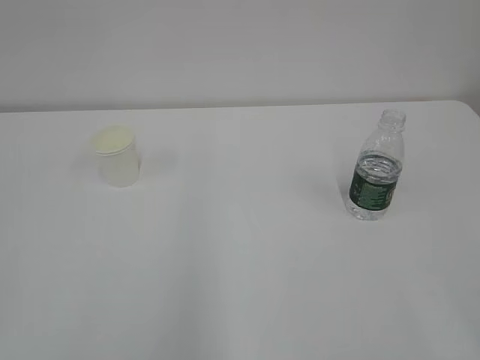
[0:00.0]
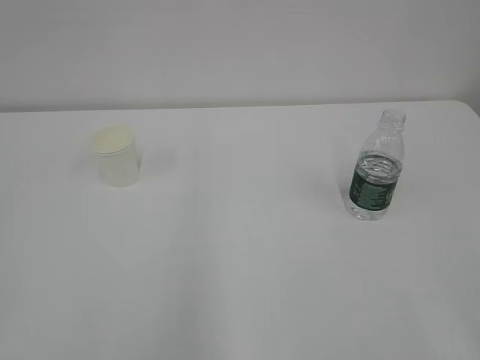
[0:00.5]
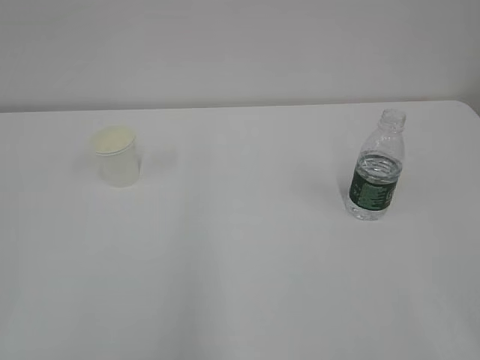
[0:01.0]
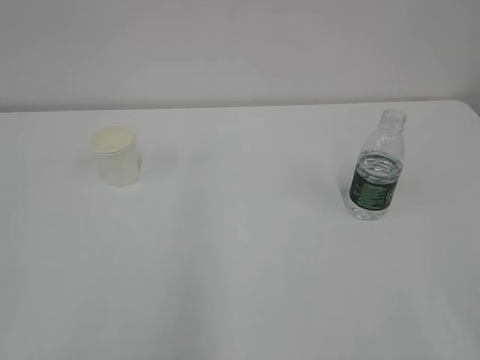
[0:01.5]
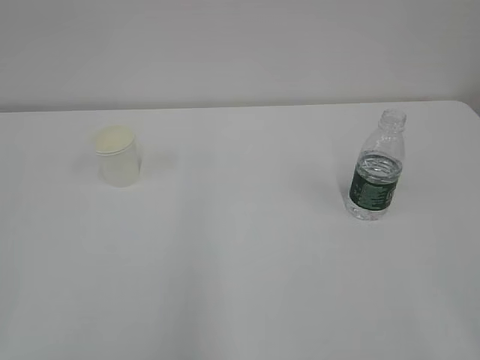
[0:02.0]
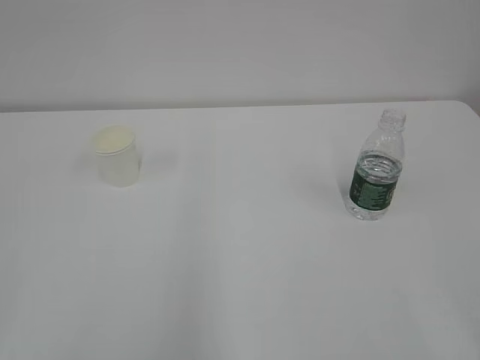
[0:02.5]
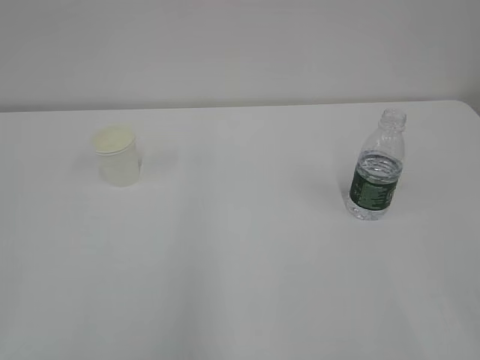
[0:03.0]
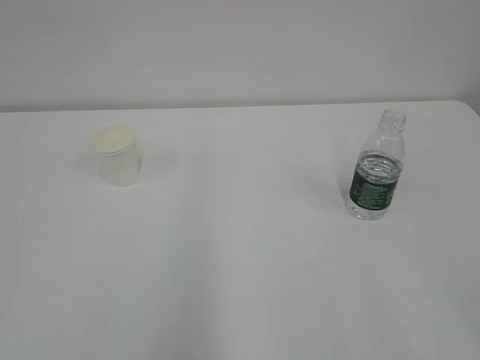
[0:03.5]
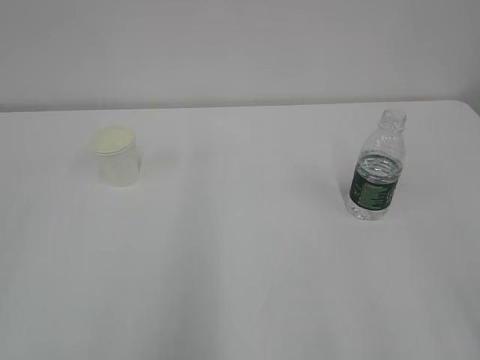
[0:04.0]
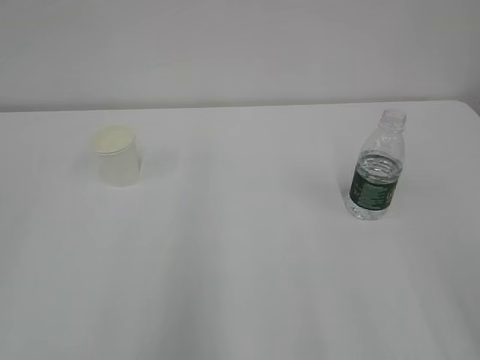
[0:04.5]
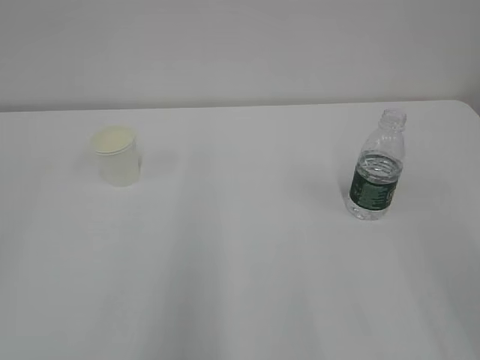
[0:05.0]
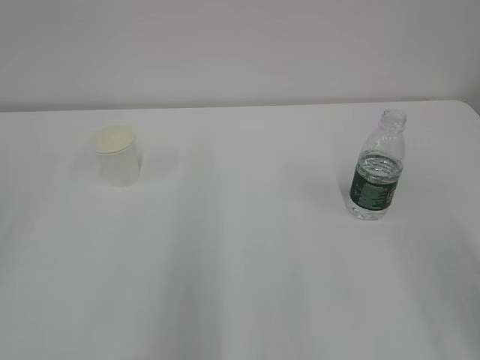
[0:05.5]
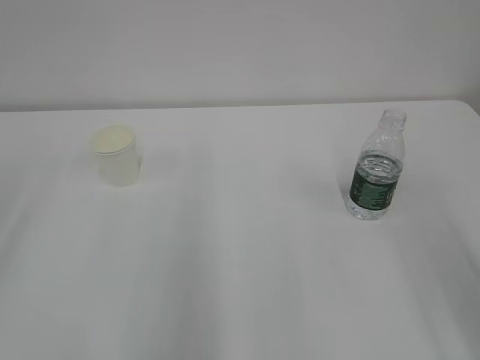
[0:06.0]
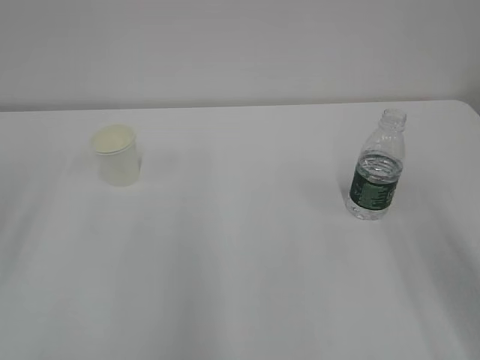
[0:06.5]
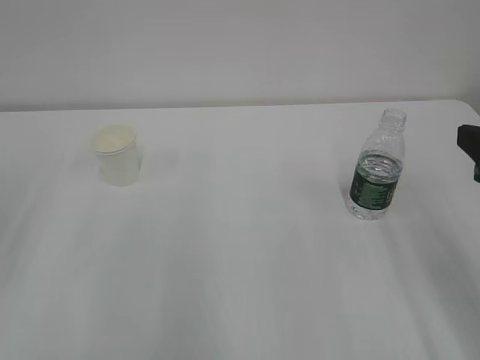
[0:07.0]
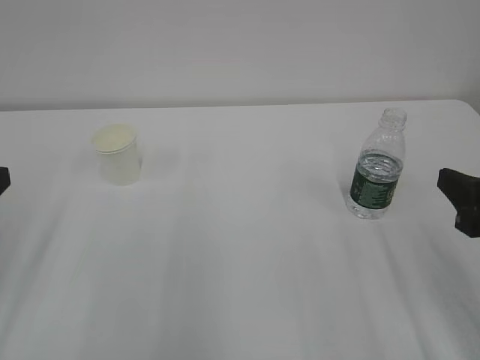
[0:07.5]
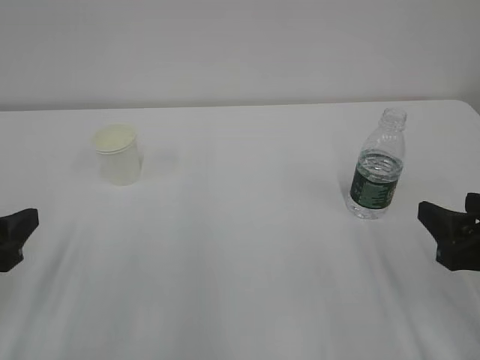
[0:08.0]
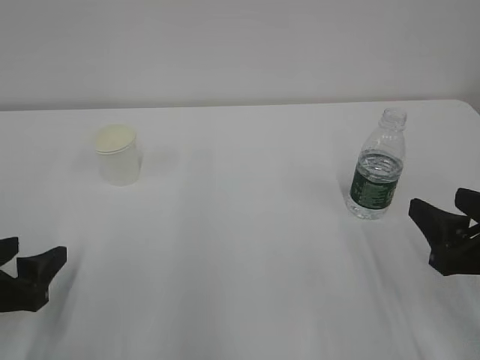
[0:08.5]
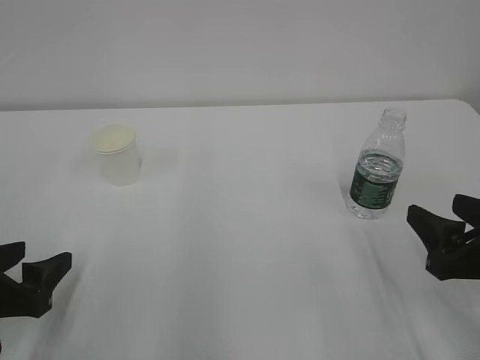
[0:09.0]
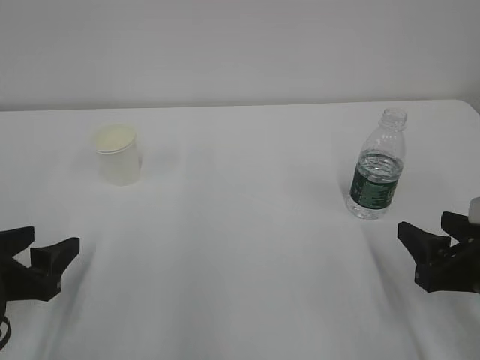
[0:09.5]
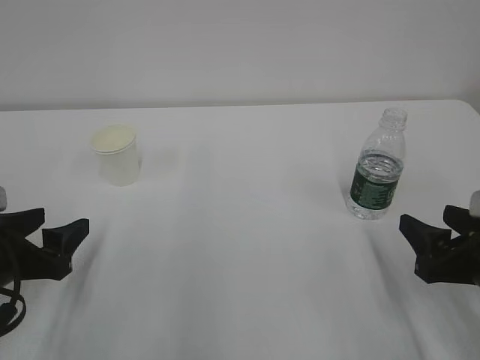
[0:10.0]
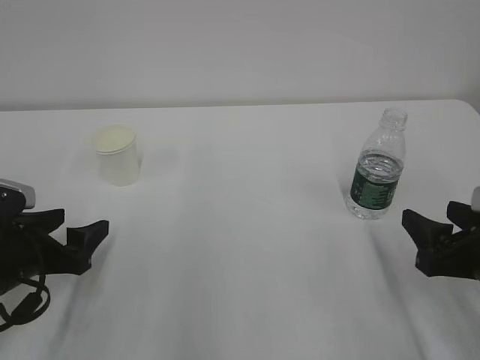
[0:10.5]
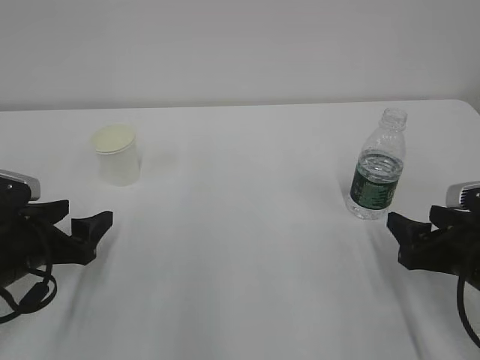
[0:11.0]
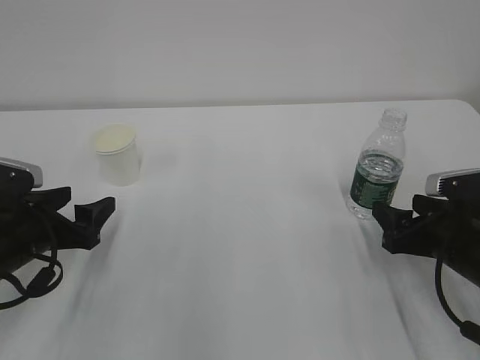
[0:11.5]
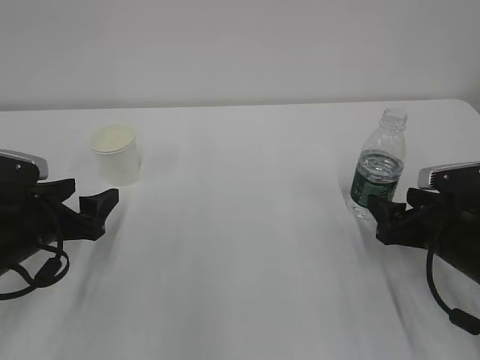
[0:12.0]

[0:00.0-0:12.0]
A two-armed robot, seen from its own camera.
0:06.0 to 0:08.0: The two grippers go roughly 15 cm downward.
0:08.0 to 0:10.0: The left gripper shifts by about 5 cm.
0:10.0 to 0:12.0: Both grippers move forward, roughly 5 cm.

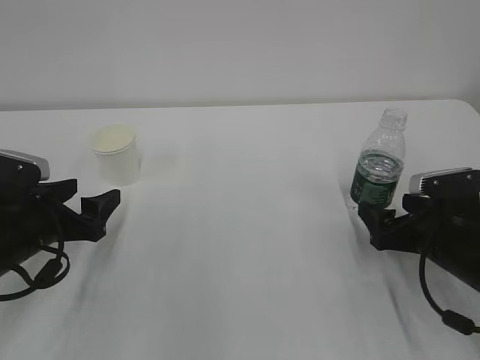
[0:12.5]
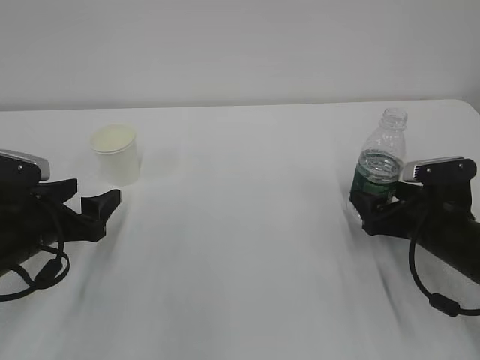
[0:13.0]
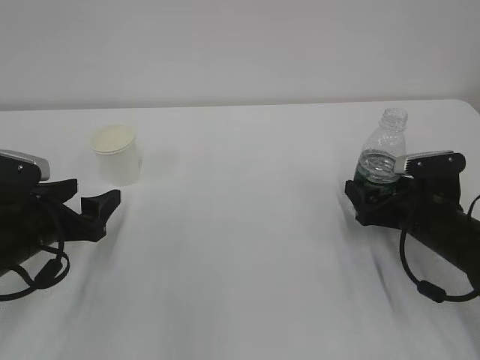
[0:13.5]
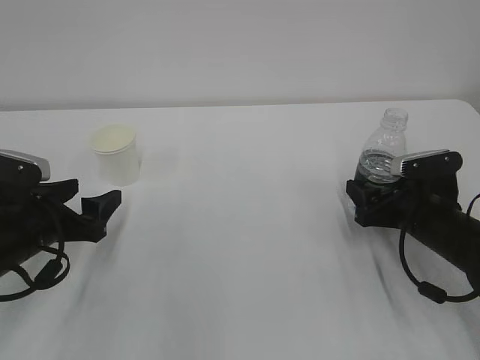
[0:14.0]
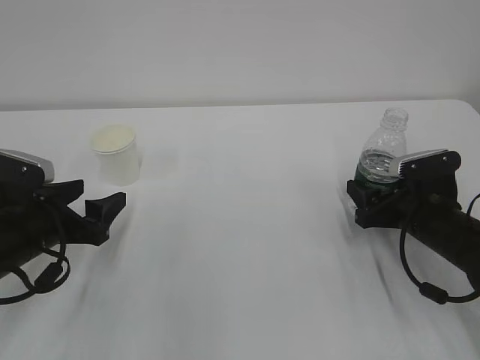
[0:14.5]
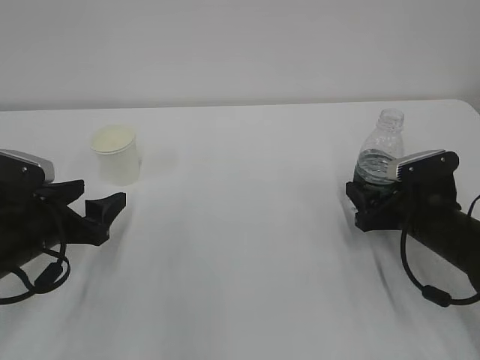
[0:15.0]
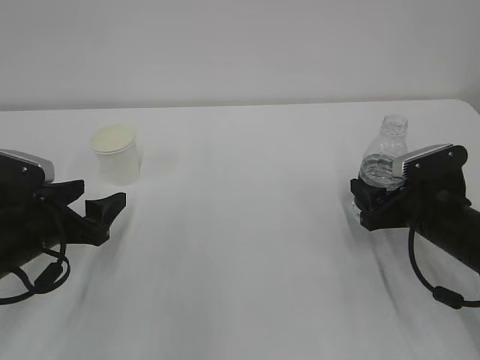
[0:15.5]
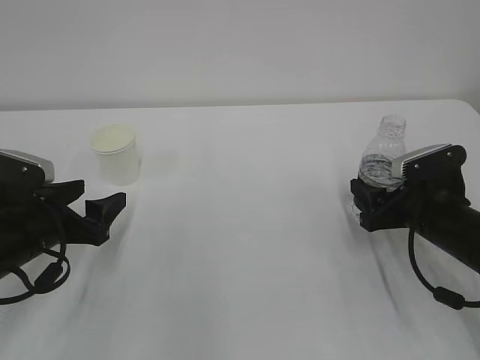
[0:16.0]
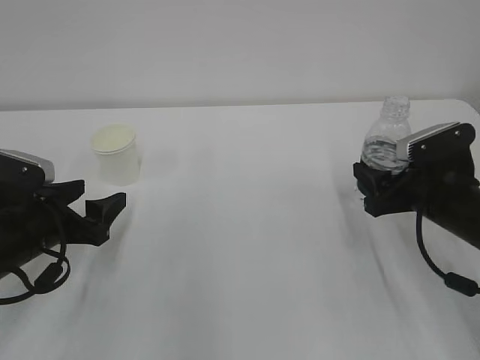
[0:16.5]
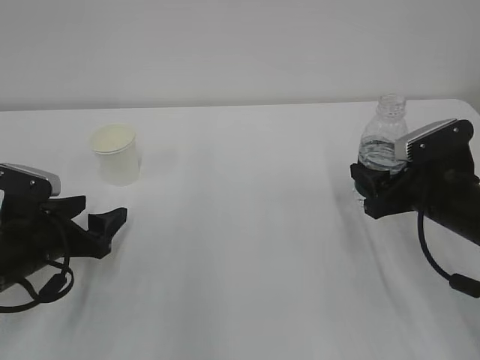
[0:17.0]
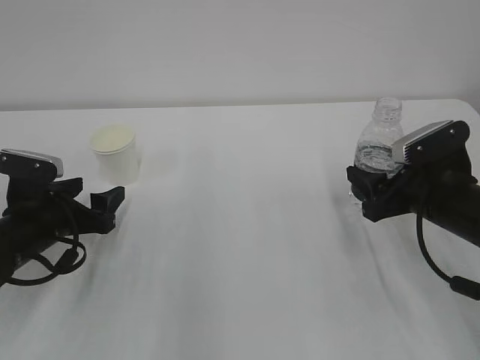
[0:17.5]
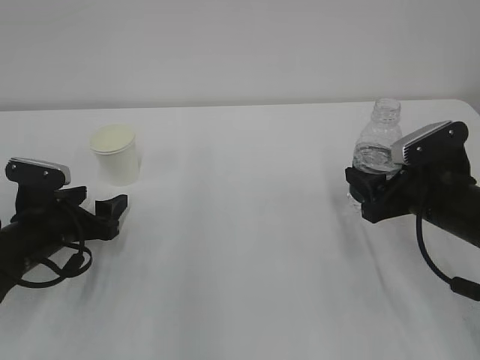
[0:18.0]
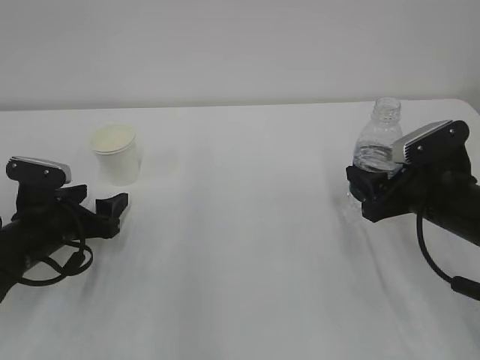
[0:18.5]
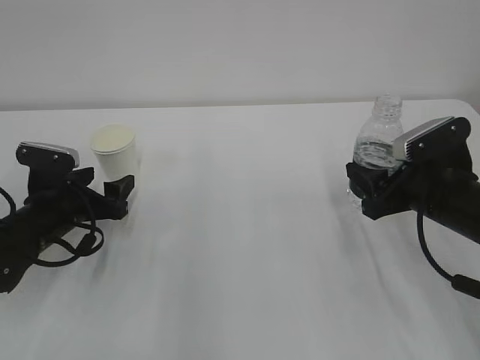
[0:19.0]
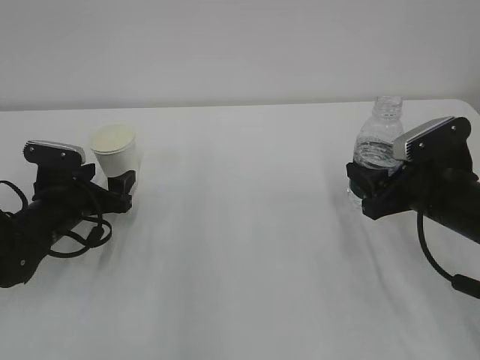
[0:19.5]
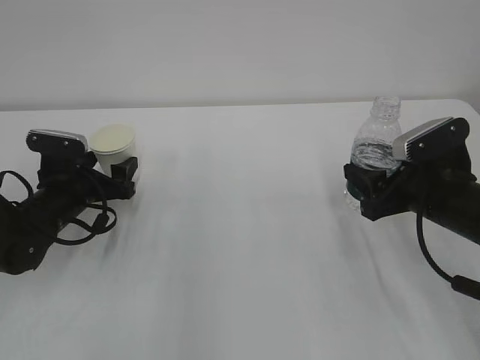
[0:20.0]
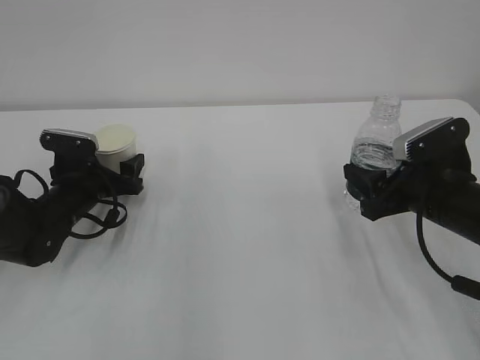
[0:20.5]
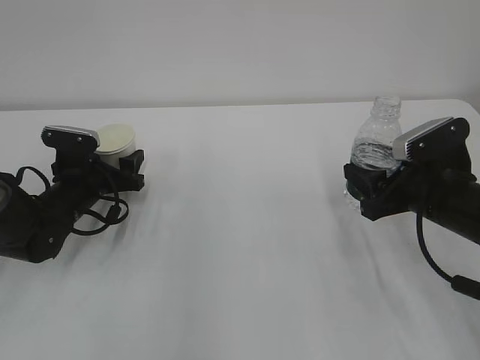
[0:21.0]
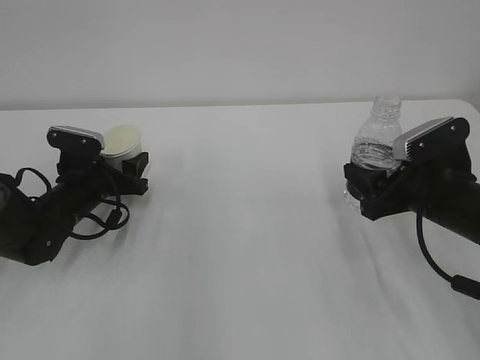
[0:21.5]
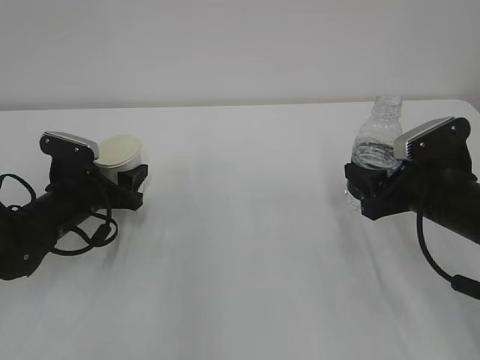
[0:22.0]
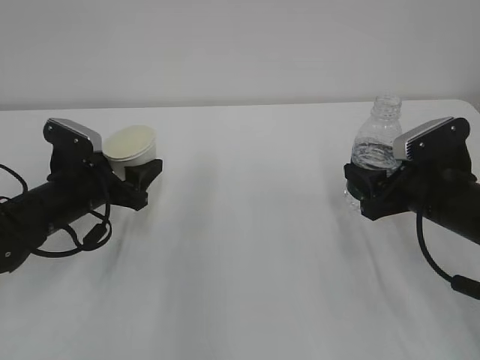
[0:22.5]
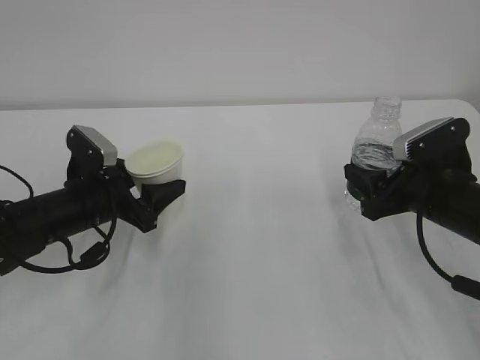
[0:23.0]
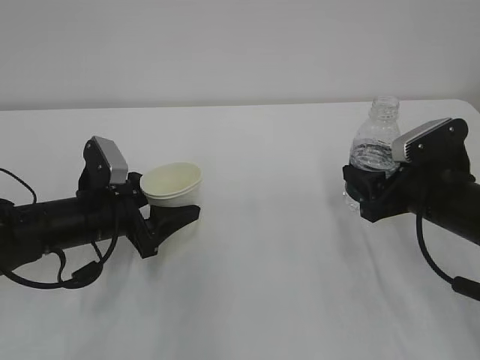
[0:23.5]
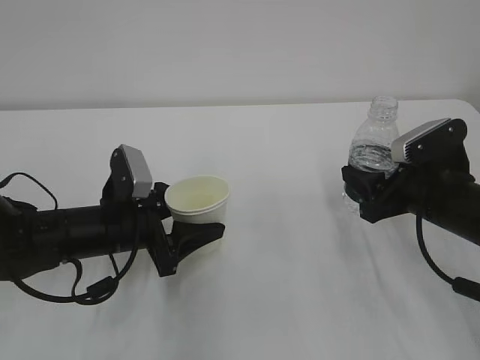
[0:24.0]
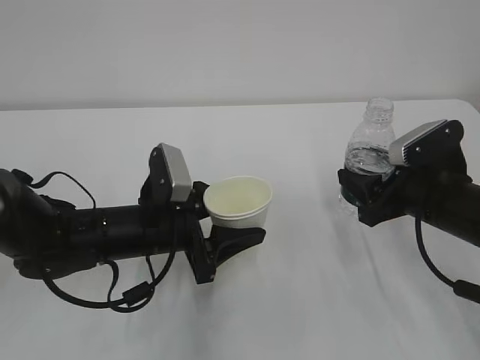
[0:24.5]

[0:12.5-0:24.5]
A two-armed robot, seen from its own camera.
0:12.5 to 0:14.5: The right gripper closes.
0:14.5 to 0:18.5: The grippers make only small movements.
0:18.5 to 0:20.5: The left gripper heads forward, covering about 10 cm.
0:20.5 to 0:22.5: The left gripper shifts by roughly 5 cm, and closes its fingers.
0:22.5 to 0:24.5: The left gripper goes approximately 10 cm to the right and backward.

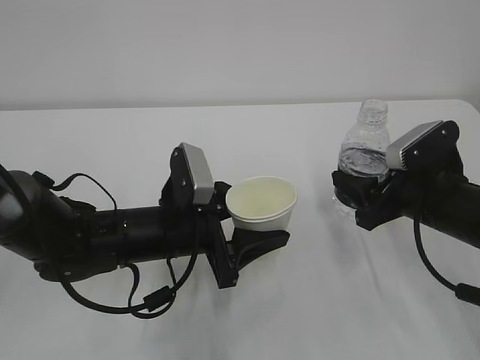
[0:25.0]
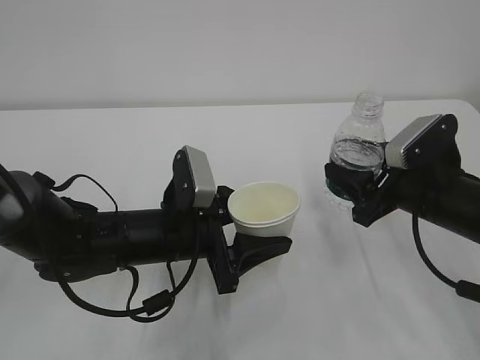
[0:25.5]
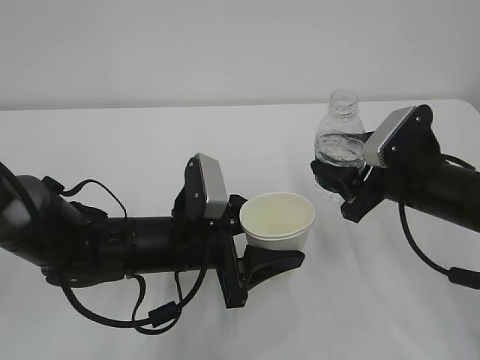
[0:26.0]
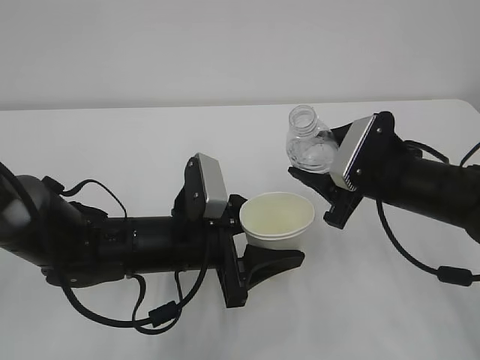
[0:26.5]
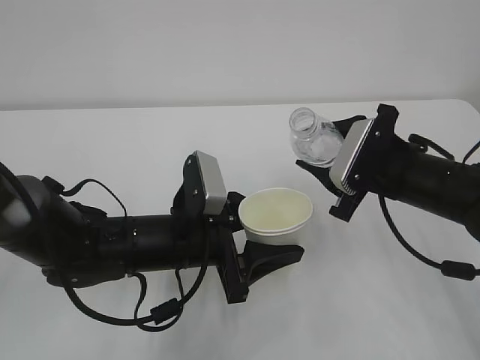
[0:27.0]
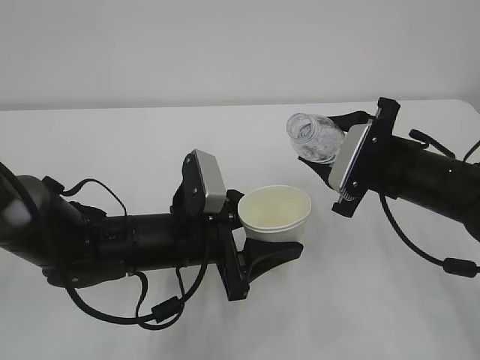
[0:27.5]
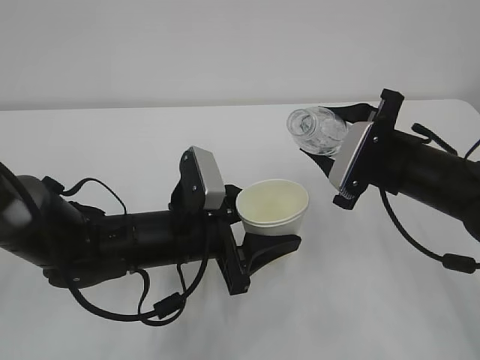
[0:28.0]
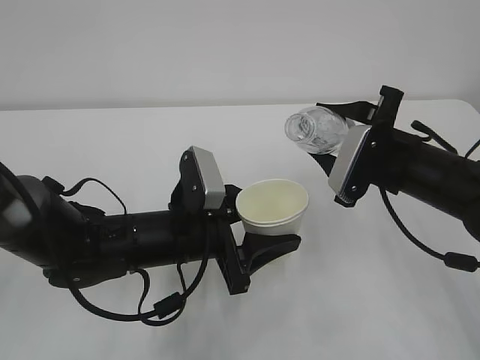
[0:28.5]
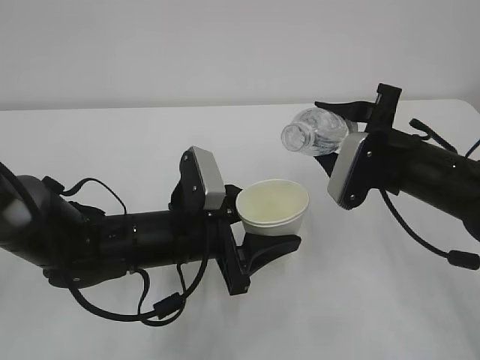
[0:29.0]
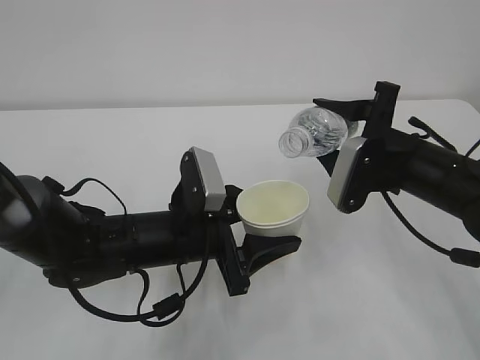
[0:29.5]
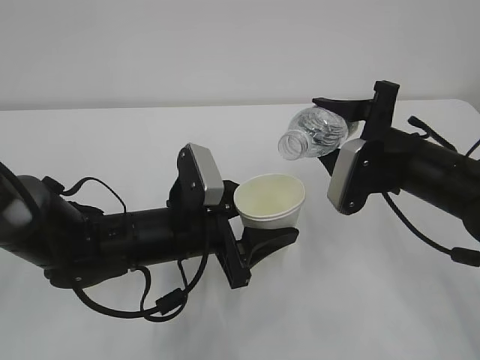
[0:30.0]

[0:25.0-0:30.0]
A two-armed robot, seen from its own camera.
0:25.0 to 0:27.5: The right gripper shifts by some 5 cm.
